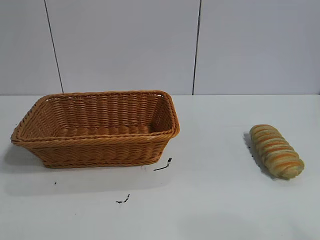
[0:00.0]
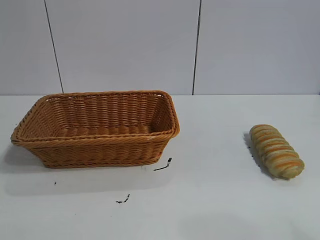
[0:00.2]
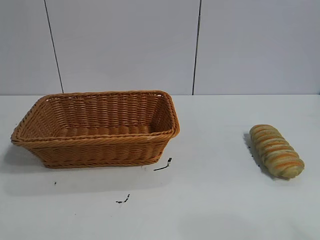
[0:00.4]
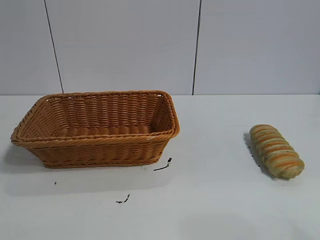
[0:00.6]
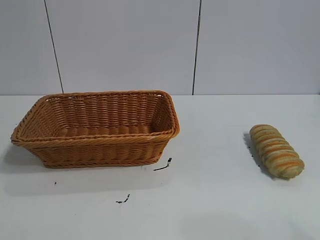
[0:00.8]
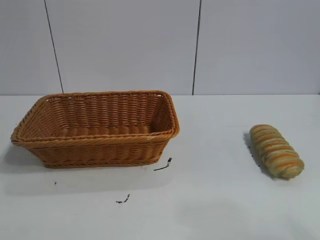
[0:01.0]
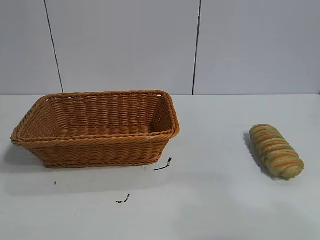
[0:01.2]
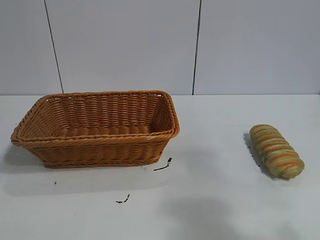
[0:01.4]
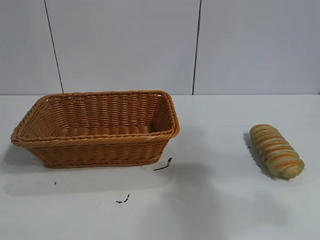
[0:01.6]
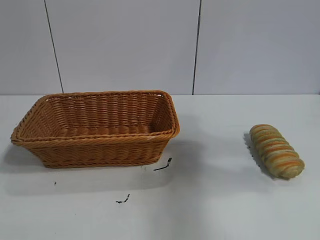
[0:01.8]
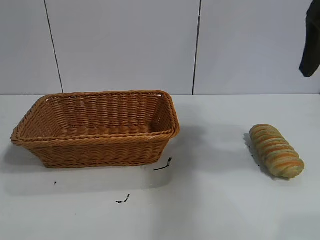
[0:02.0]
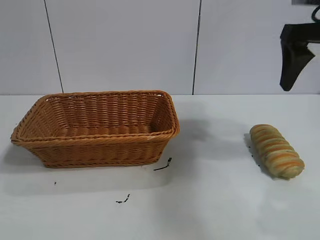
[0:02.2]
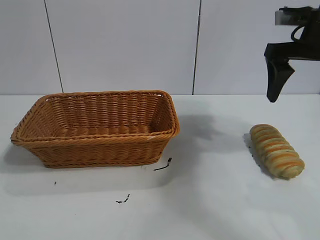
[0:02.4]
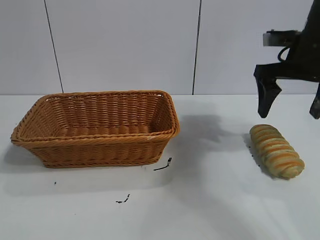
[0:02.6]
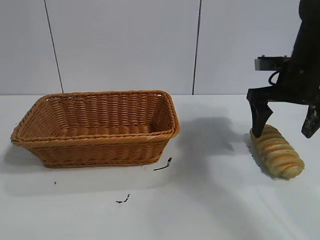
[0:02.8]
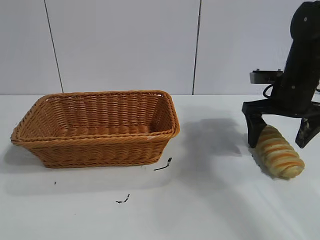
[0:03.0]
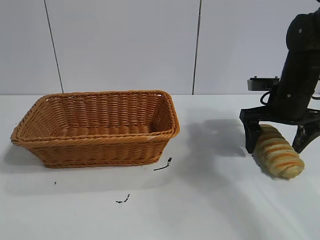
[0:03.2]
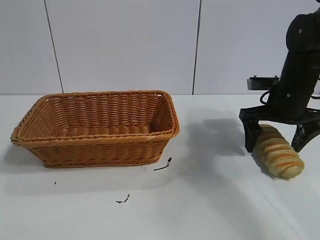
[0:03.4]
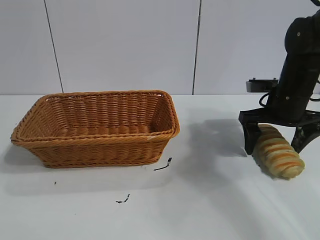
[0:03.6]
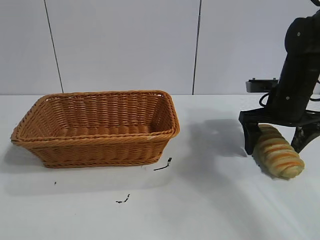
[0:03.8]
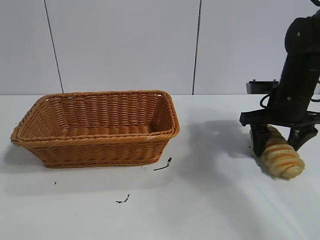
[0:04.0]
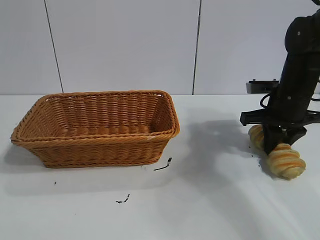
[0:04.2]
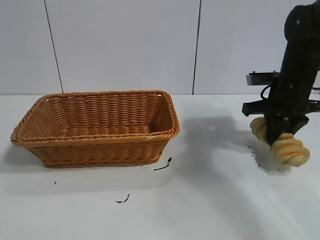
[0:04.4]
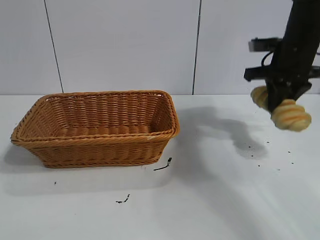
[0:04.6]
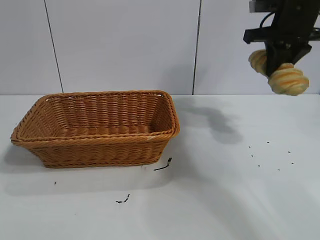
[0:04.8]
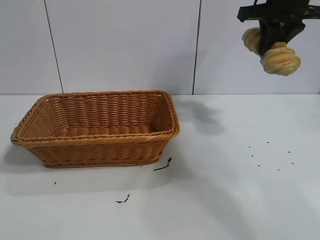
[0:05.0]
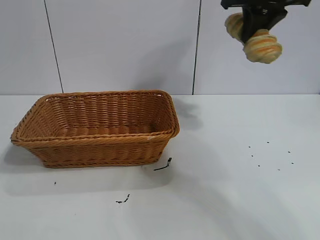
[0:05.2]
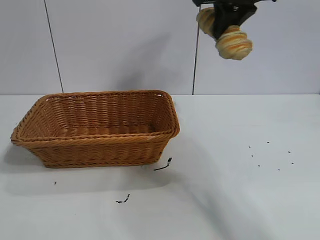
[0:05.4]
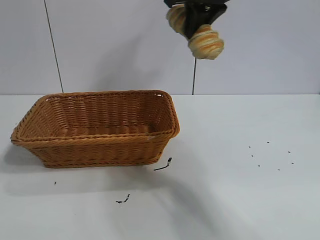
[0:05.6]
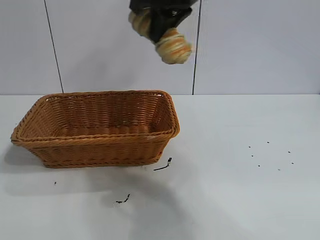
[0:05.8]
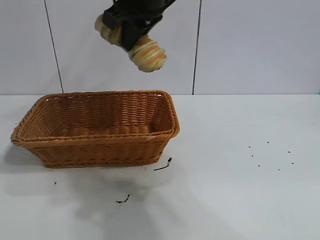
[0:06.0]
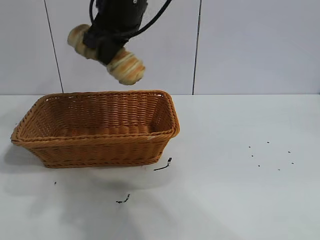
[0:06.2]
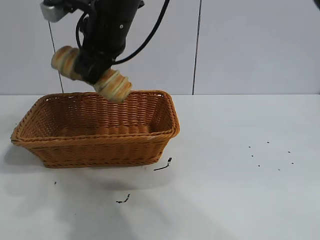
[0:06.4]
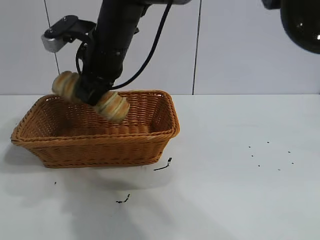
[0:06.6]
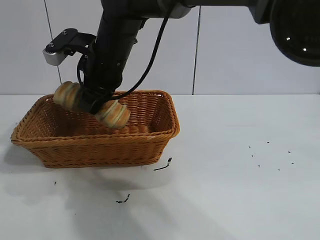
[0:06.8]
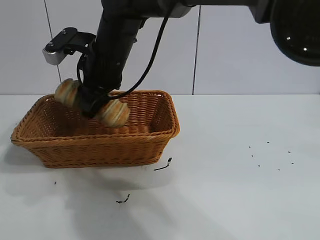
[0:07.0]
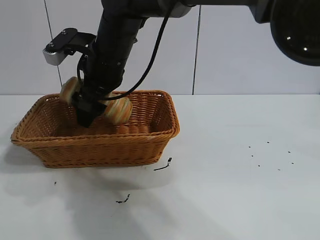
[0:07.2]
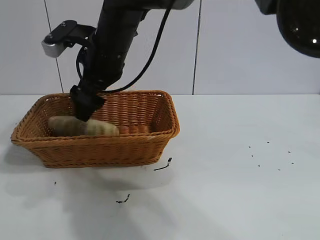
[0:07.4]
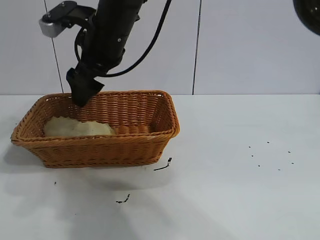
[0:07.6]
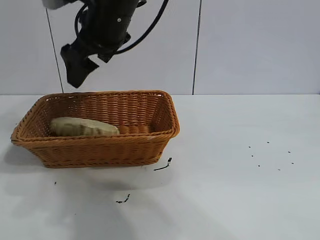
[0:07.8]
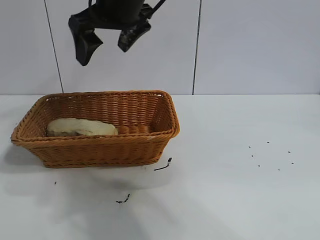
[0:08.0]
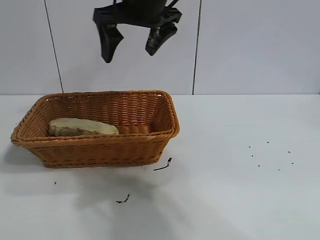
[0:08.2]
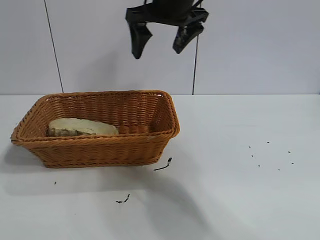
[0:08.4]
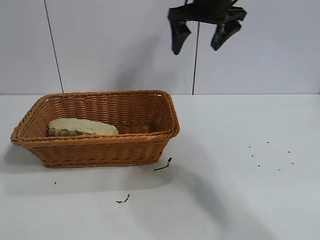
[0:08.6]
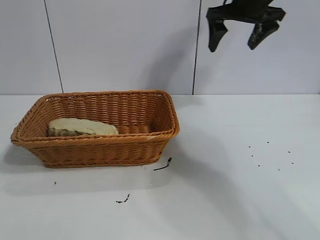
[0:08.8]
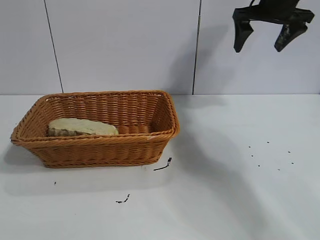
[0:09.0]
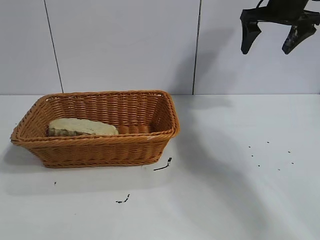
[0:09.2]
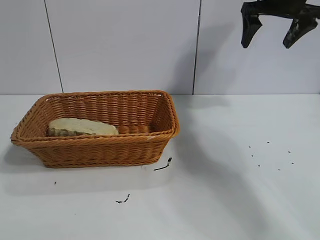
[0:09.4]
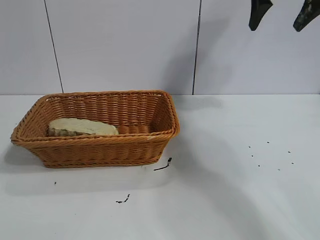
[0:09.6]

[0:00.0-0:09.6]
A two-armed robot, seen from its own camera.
Task of the whole recording: pick up the long bread and put it into the basket.
Step, 0:02.0 to 0:04.2: Grasp the long bread with right gripper.
Step, 0:04.4 to 0:07.6: Place the long bread in the basket with right gripper.

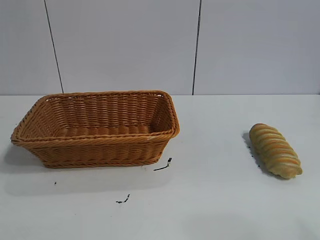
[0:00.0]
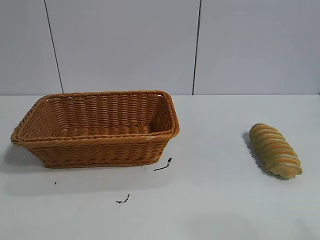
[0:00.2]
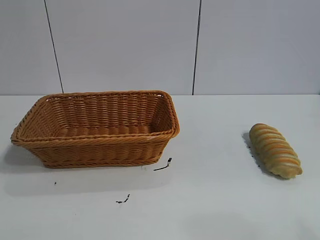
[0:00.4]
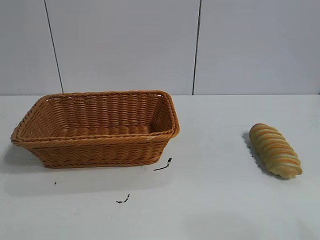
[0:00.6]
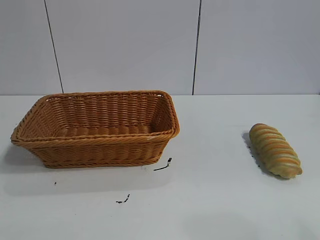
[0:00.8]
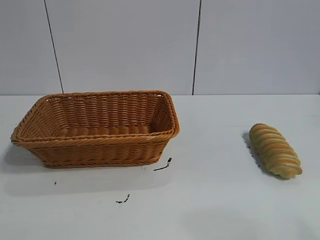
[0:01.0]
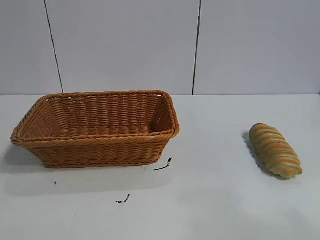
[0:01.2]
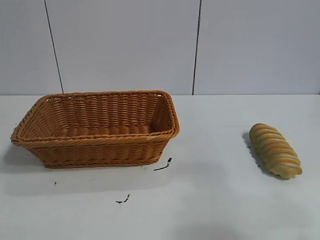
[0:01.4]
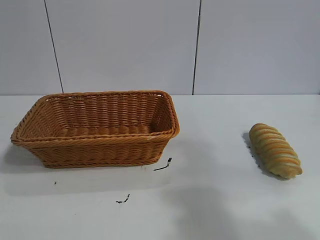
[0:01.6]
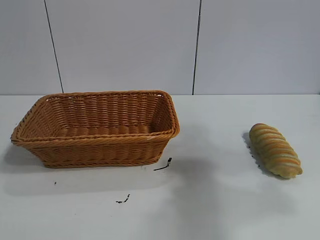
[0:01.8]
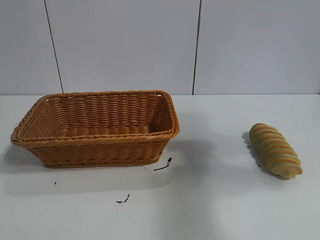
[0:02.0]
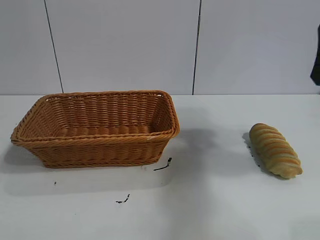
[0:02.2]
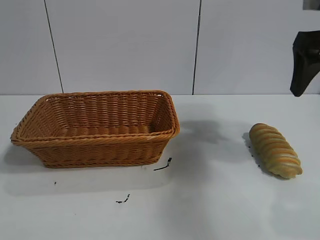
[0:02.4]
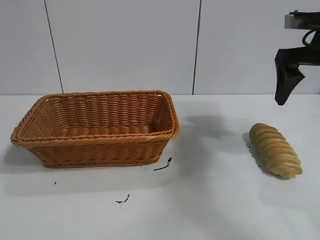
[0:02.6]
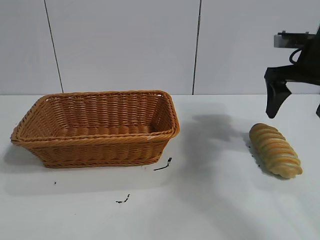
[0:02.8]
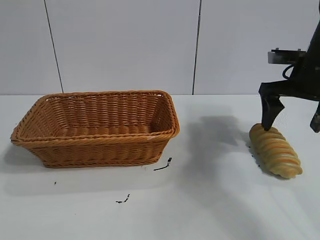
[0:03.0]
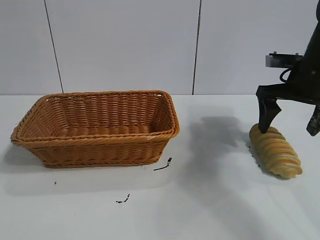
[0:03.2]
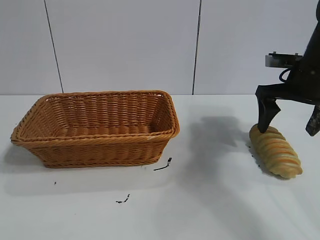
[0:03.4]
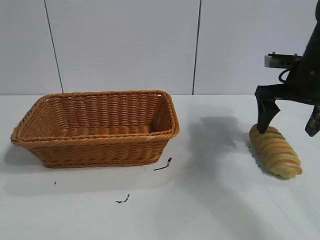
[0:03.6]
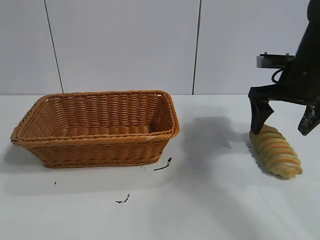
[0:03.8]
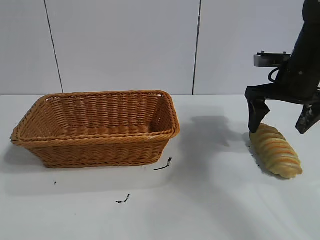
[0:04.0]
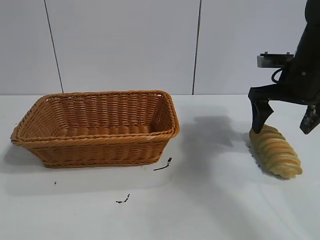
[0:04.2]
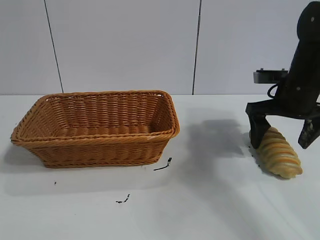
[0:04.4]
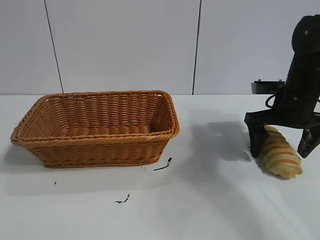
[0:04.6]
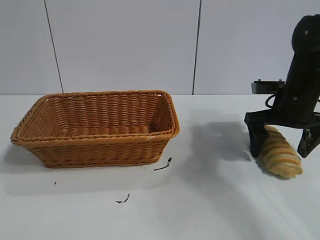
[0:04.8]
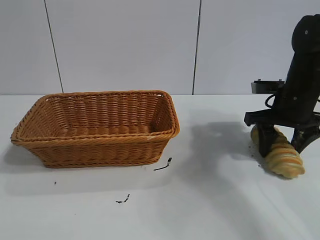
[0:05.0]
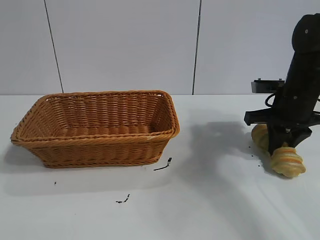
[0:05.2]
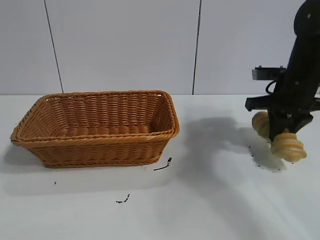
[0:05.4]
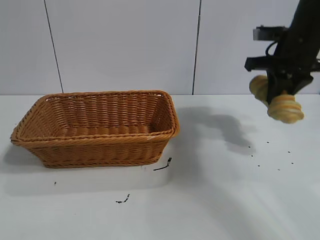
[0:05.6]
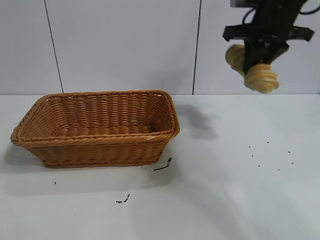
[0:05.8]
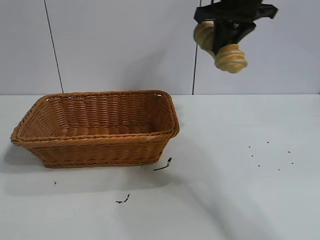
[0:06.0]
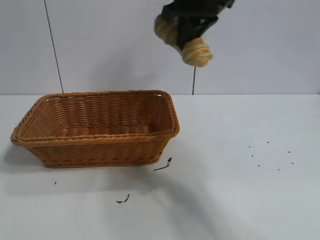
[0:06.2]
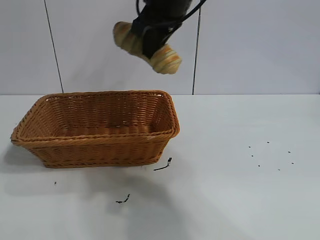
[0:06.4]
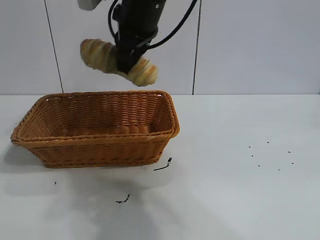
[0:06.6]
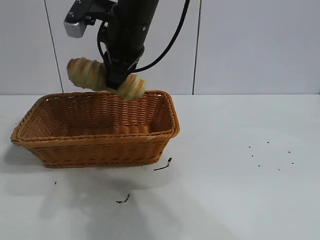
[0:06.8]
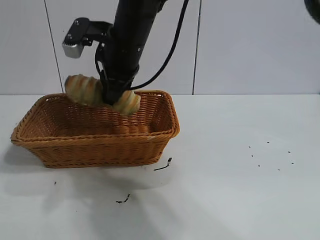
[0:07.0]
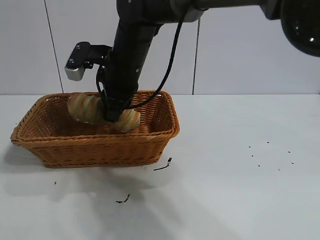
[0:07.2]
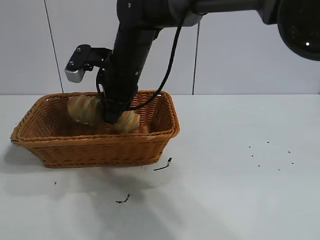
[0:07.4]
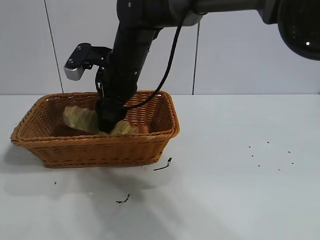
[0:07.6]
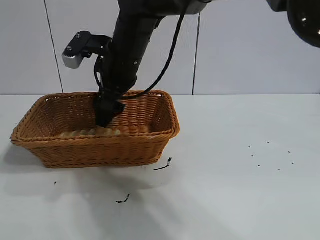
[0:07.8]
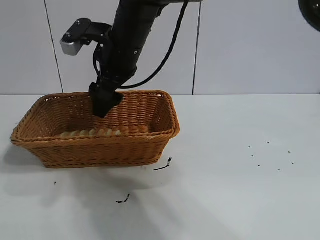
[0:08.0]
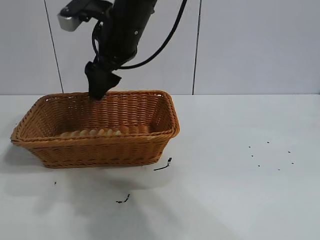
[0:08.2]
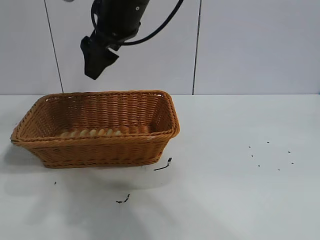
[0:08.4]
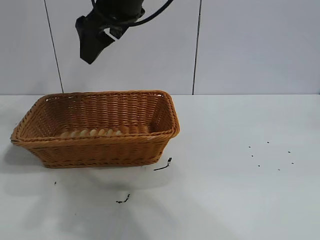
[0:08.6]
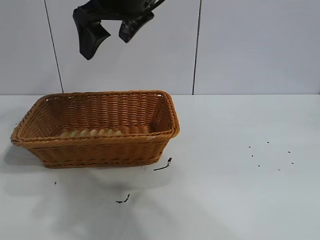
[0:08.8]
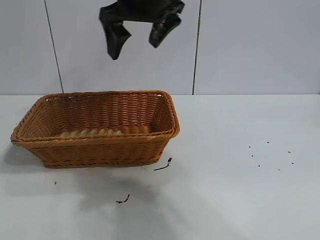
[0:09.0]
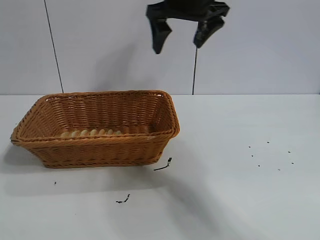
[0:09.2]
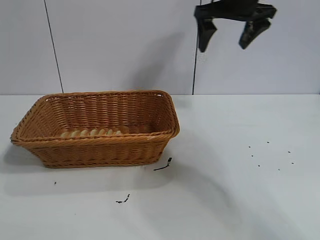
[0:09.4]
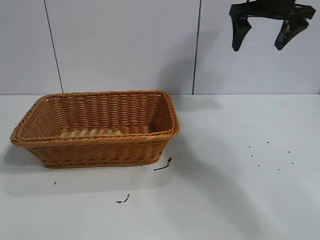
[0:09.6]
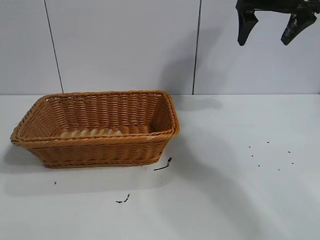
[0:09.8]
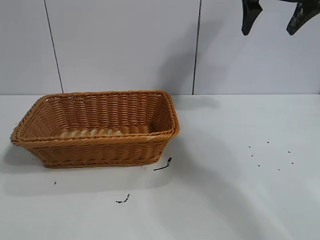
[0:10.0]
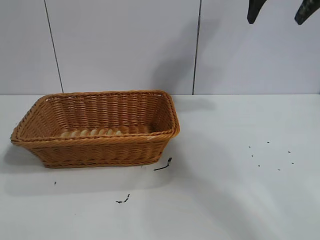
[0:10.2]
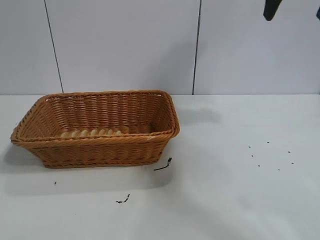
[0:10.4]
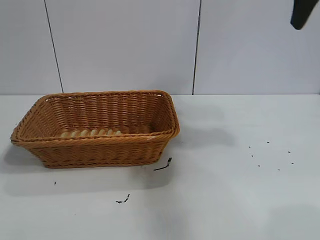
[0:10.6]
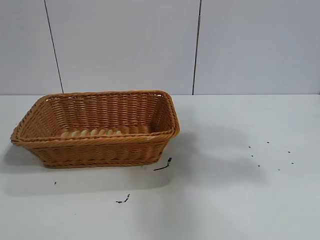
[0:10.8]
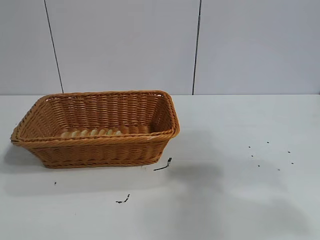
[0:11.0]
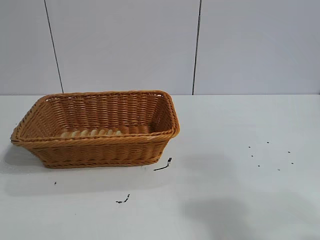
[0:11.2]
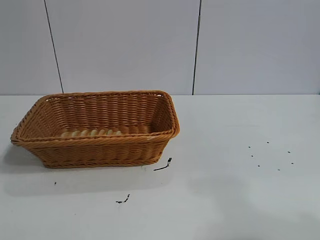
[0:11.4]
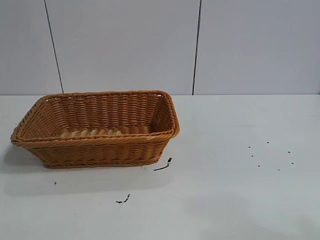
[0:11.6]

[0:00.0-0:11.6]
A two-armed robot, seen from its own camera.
Task of the whole recording: pick up the long bread and put it into the basket.
Step, 0:02.2 to 0:05.2: Grasp the long bread with right gripper.
Step, 0:05.4 to 0:08.0: Place the long bread in the basket with right gripper.
